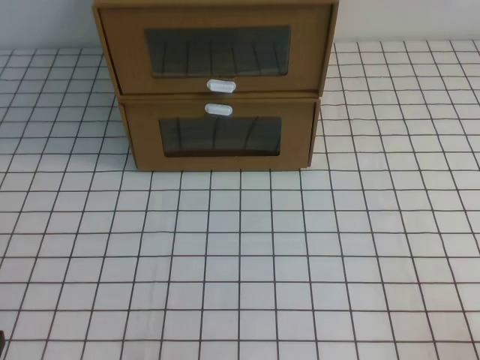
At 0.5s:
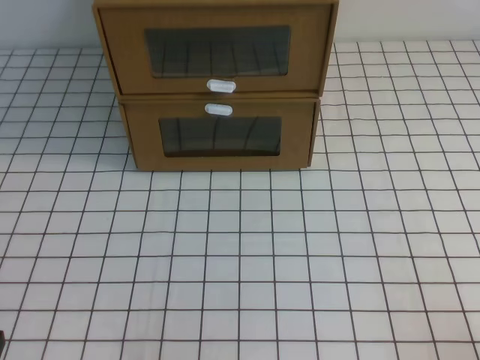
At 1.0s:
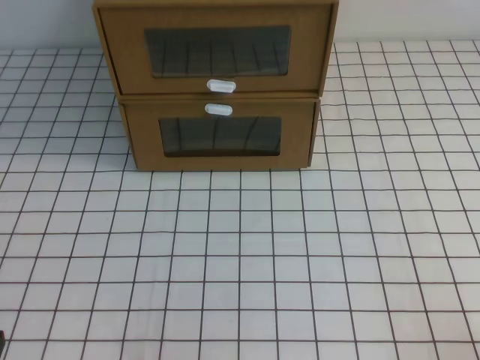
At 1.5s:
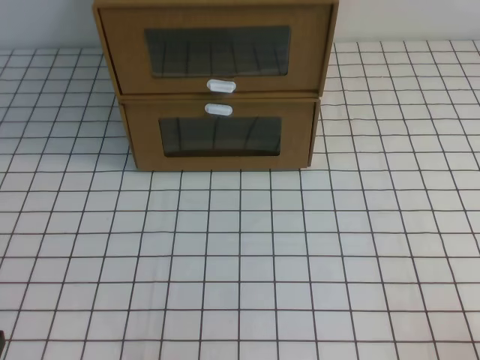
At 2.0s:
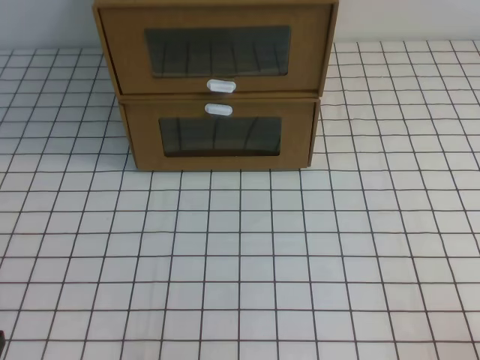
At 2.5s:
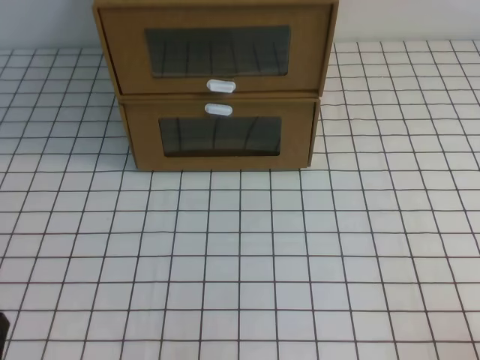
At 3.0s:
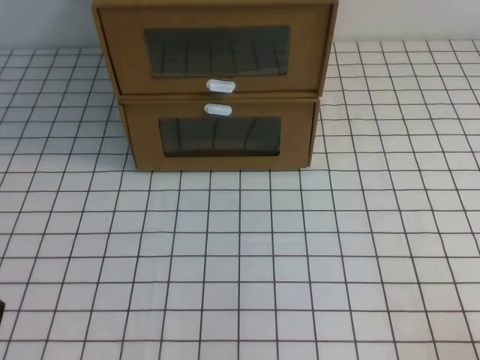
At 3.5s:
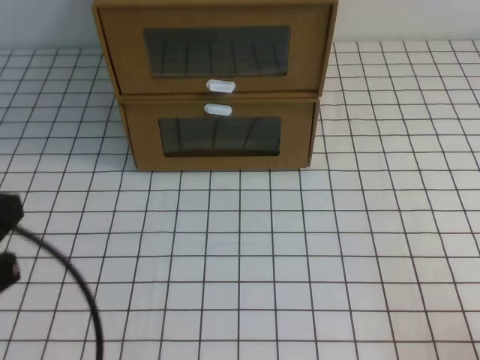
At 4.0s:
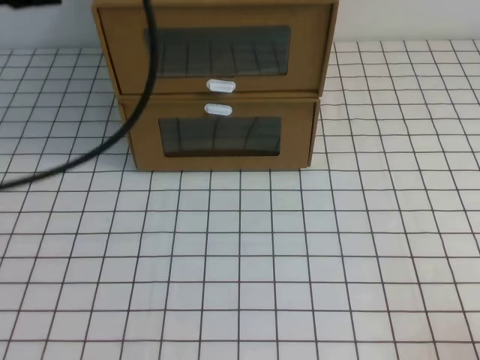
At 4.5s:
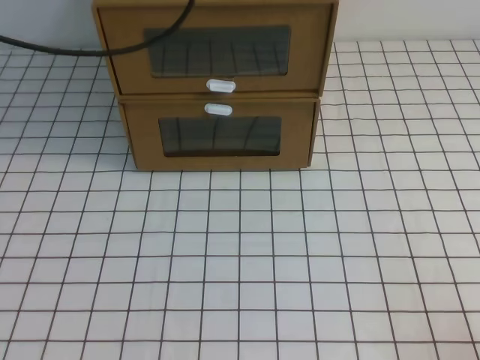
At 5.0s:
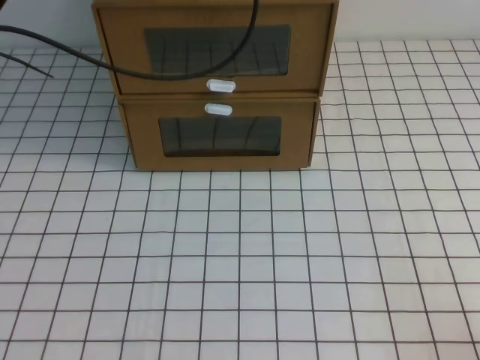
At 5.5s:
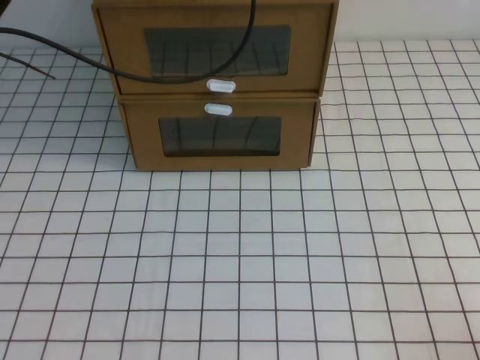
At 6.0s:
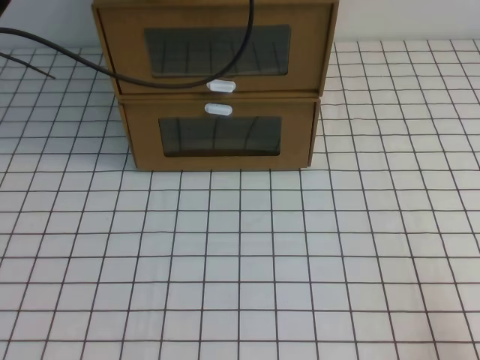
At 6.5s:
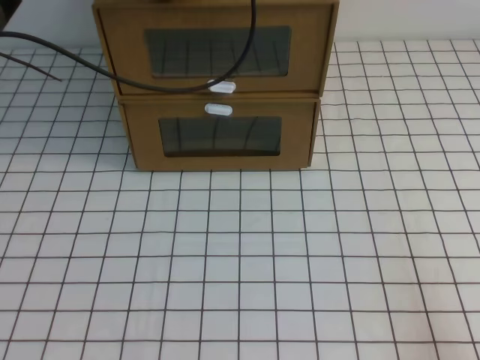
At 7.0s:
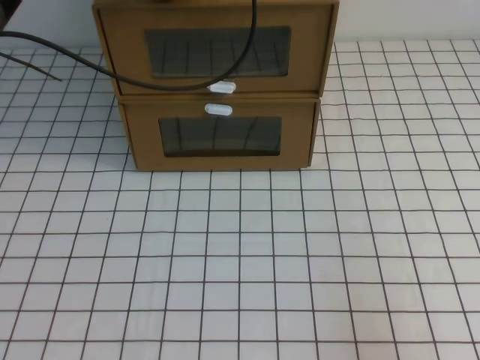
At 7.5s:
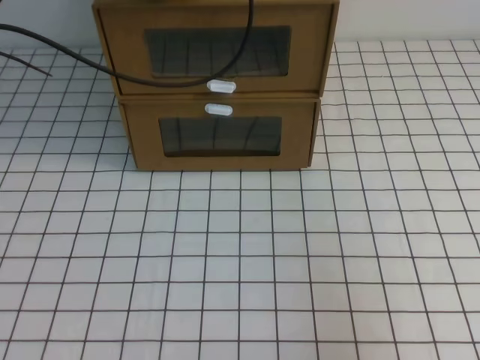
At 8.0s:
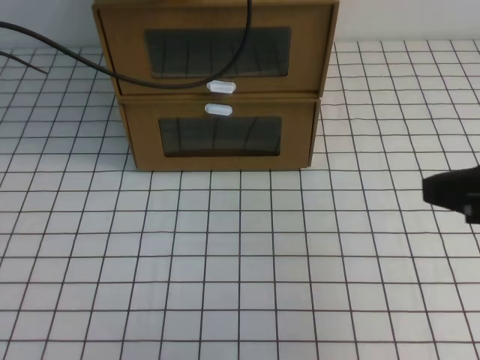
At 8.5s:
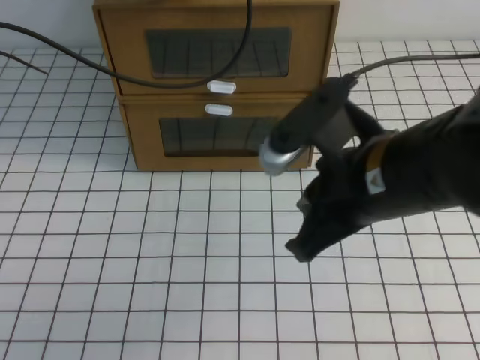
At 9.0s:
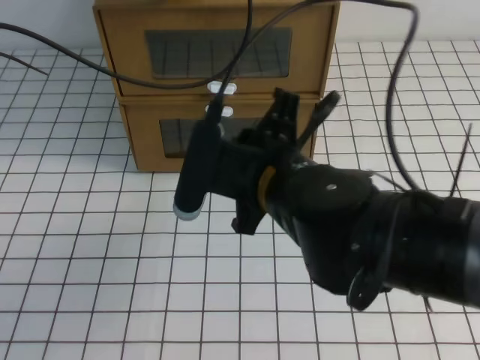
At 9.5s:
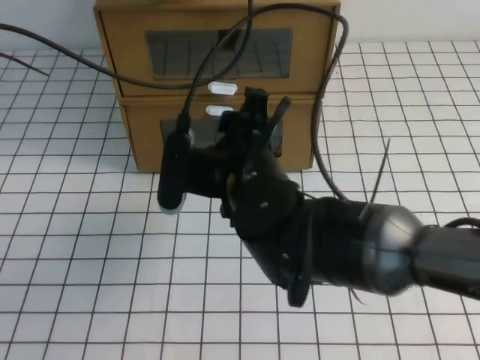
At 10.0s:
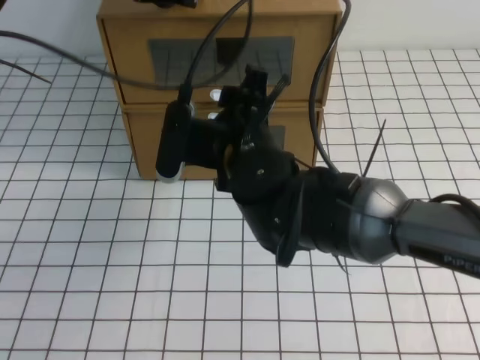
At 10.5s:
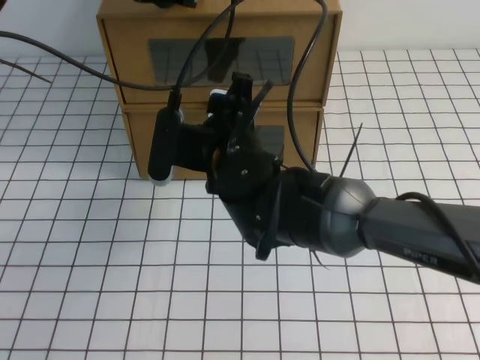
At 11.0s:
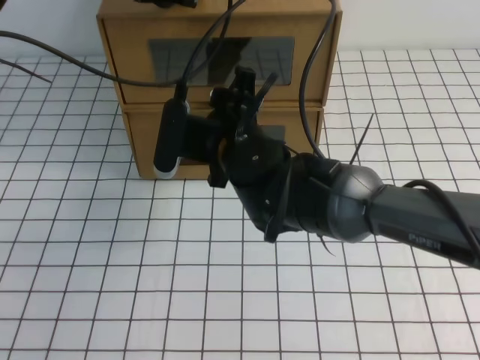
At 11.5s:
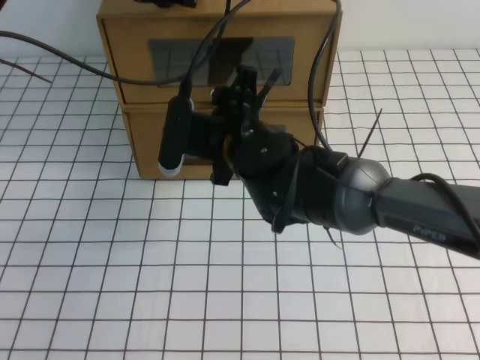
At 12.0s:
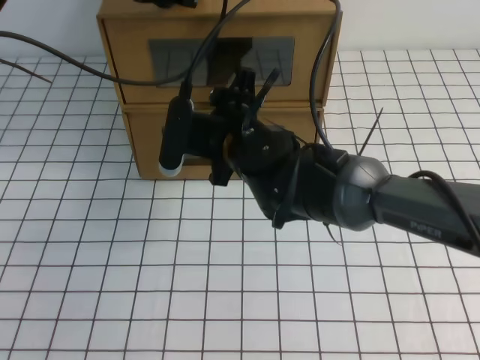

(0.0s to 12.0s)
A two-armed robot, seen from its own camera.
Task of the whole recording: open the shoebox on the white tablecloth.
2.0s - 4.0s: The left gripper is displaced upward and forward by some 30 cm.
4.0s - 6.0s: The left gripper heads forward, covering roughly 25 cm.
6.0s - 8.0s: The right gripper heads upward, forward and to the left, covering approximately 20 cm.
8.0s - 10.0s: The right gripper heads to the left and forward, covering roughly 30 cm, and opens up.
10.0s - 12.0s: The right gripper heads forward, covering some 5 cm.

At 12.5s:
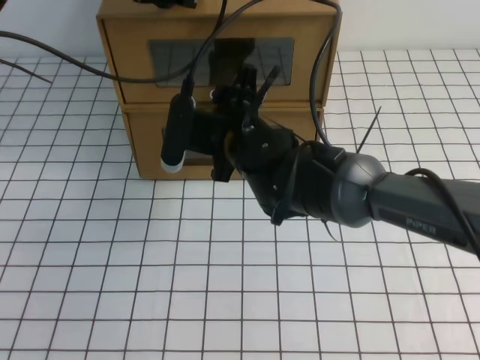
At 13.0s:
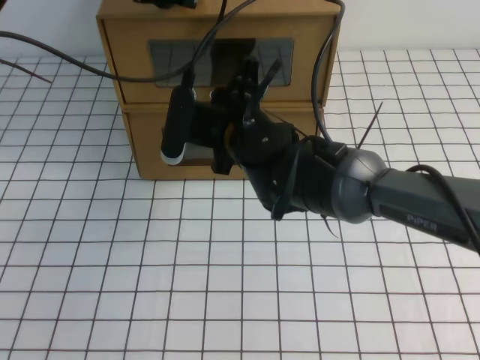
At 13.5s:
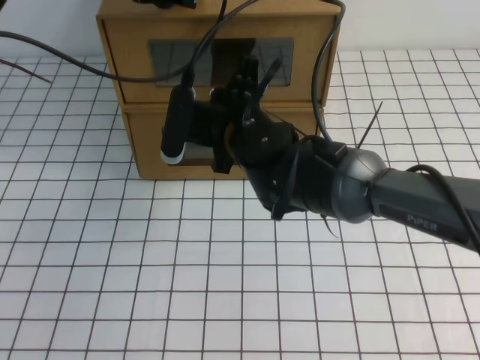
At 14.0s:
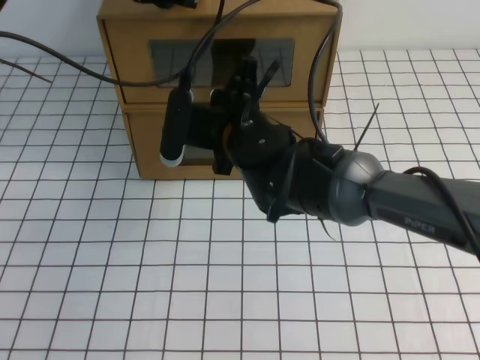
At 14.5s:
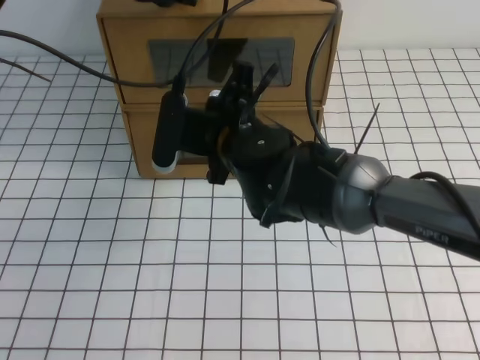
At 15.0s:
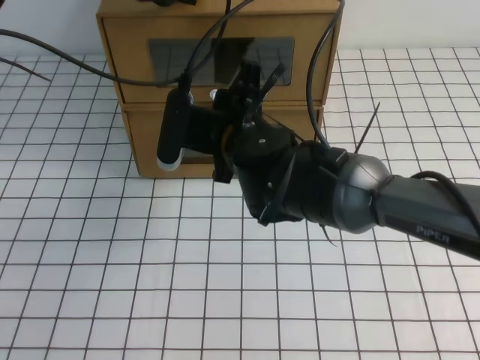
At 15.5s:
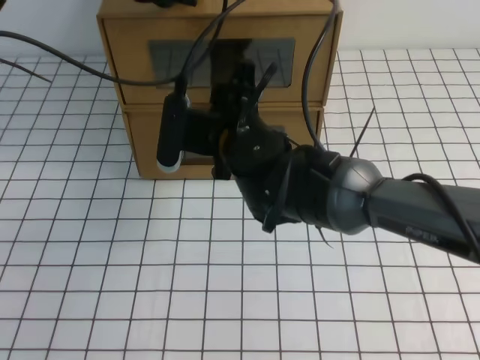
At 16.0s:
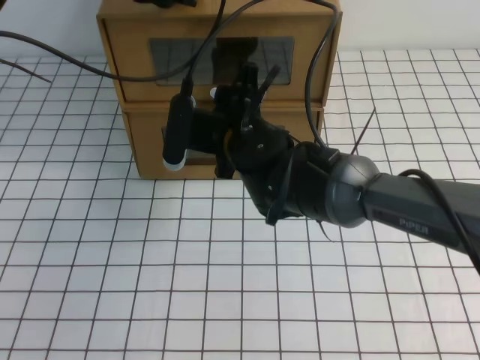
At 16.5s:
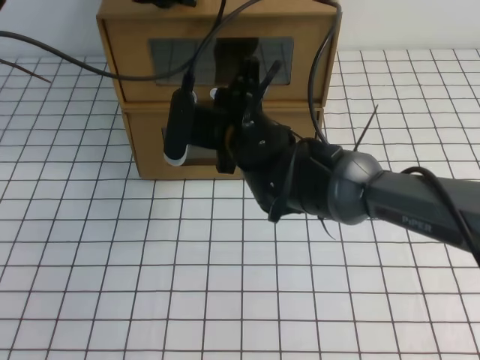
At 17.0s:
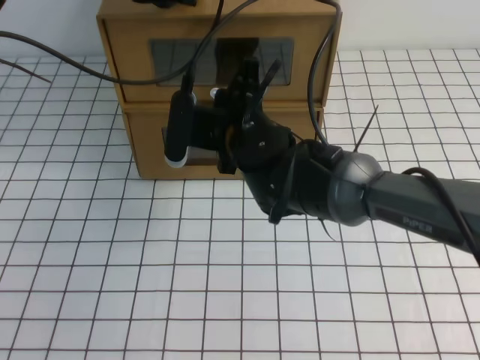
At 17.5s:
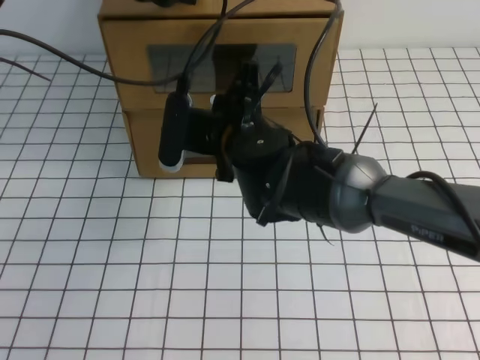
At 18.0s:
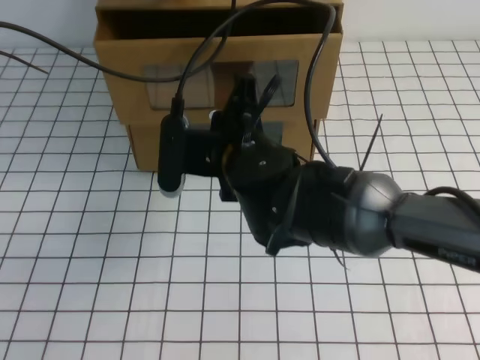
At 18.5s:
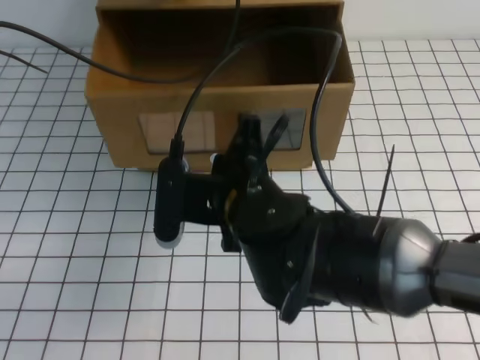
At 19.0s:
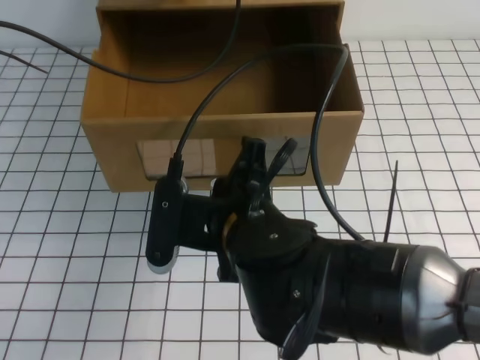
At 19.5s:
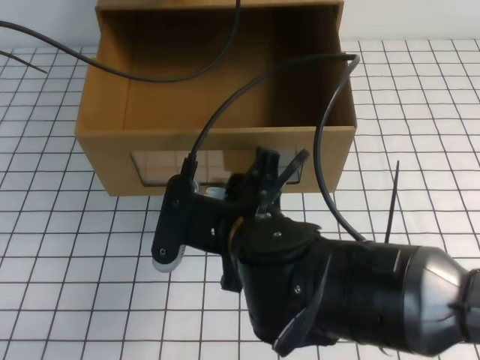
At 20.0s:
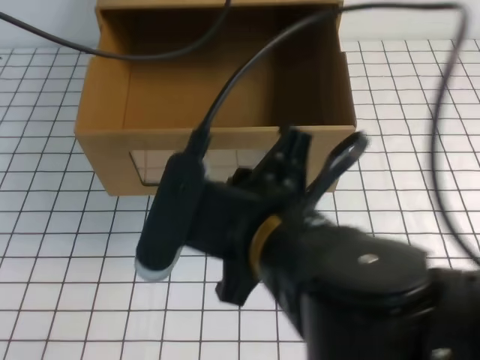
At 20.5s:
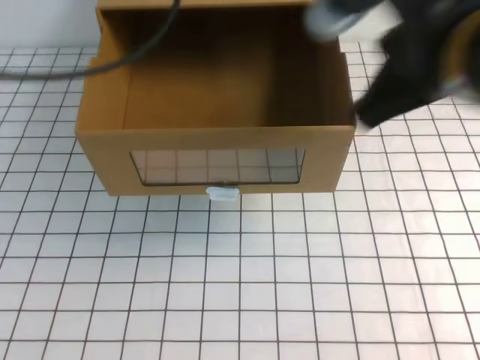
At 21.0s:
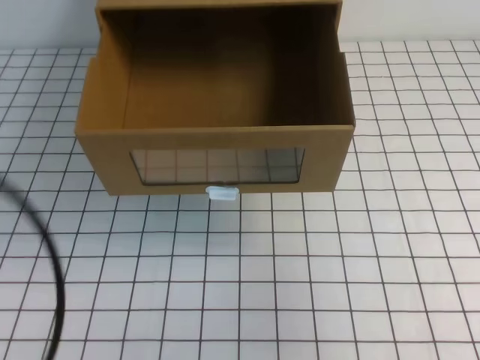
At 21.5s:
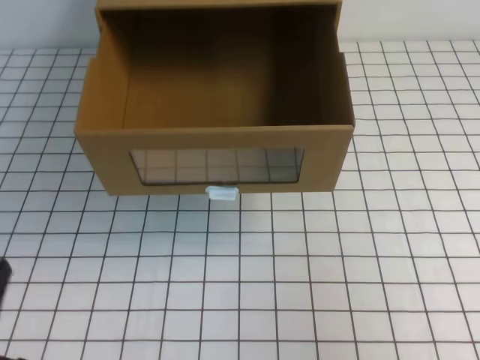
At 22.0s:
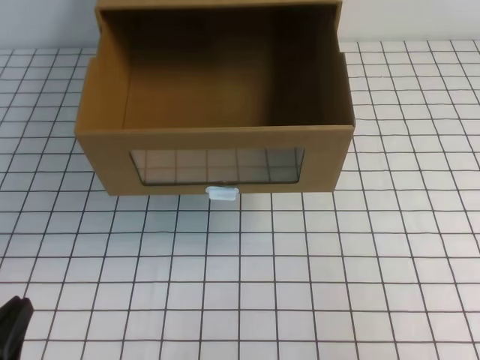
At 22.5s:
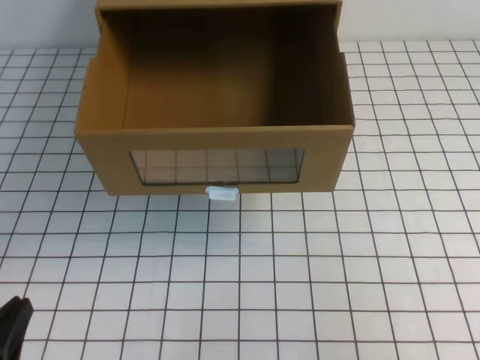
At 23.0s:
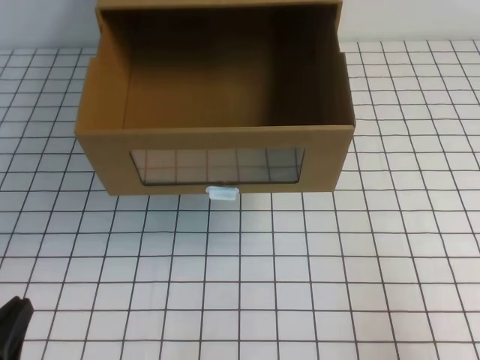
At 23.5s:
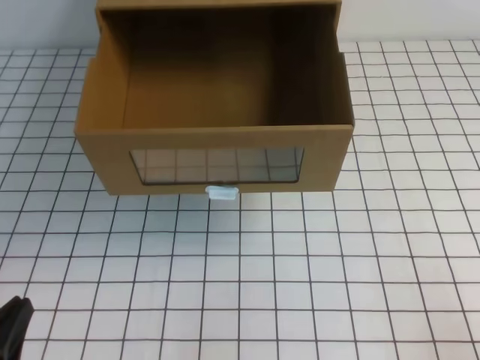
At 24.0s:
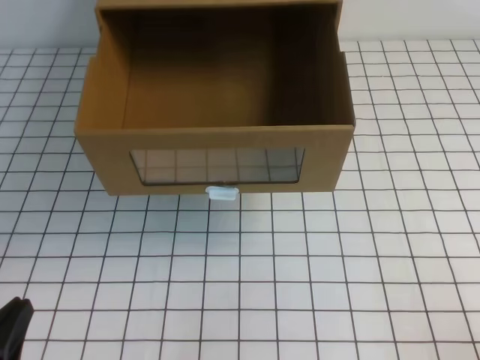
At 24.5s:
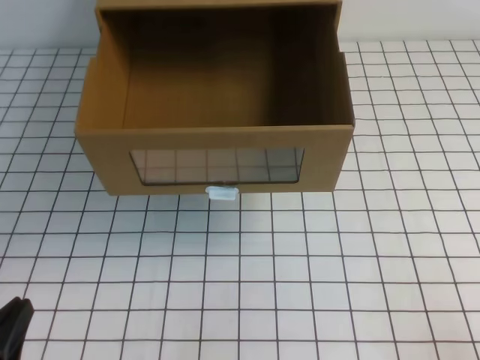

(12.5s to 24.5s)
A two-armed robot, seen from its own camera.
Task of the whole recording: open the shoebox on the white tablecloth.
12.5s - 14.5s: The right gripper closes up.
14.5s - 16.5s: The right gripper opens up.
16.5s - 18.5s: The right gripper heads backward, covering approximately 10 cm, and closes up.
18.5s - 20.5s: The left gripper travels backward and upward by about 15 cm. Meanwhile the right gripper is displaced upward, to the right and backward by about 20 cm, and opens, then closes once more.
20.5s - 22.5s: The left gripper shifts approximately 40 cm downward and backward, while the right gripper moves to the right and downward, some 20 cm.

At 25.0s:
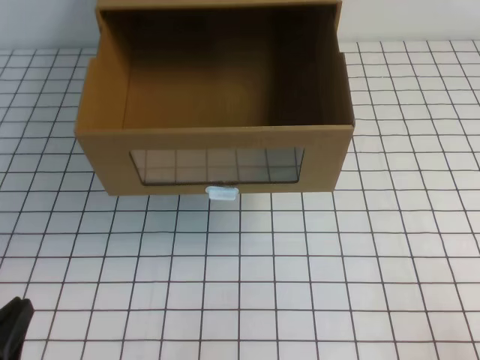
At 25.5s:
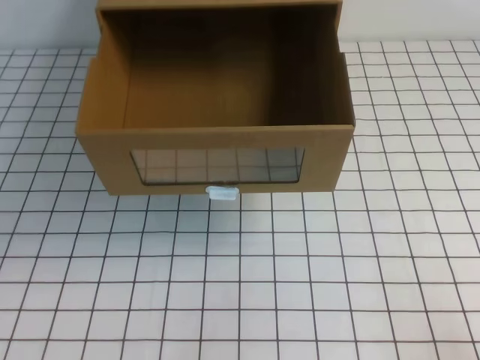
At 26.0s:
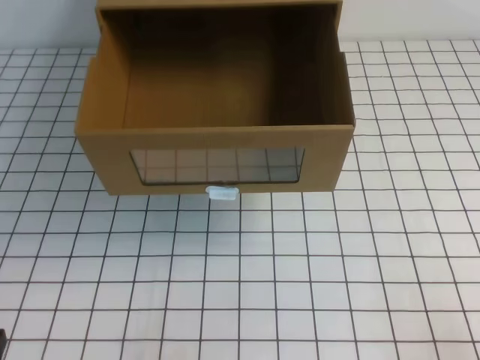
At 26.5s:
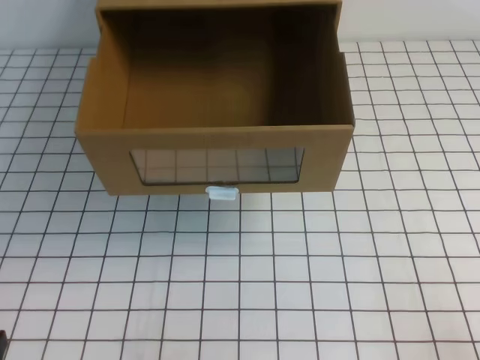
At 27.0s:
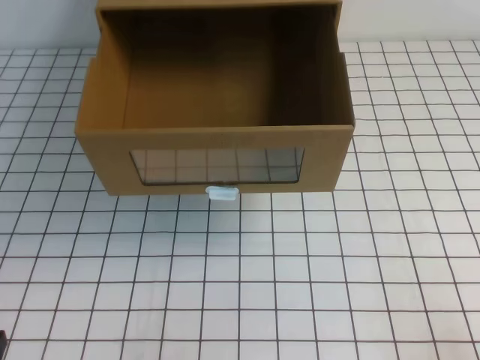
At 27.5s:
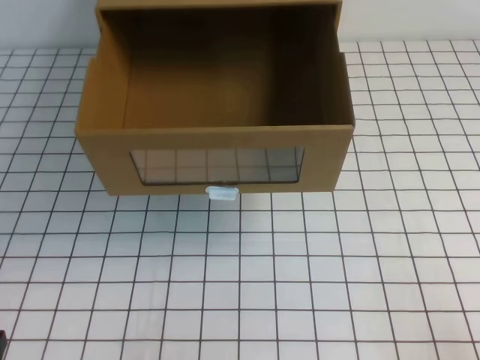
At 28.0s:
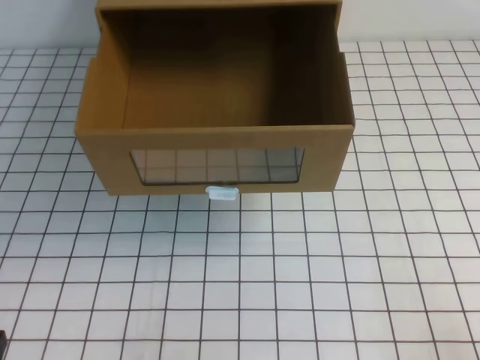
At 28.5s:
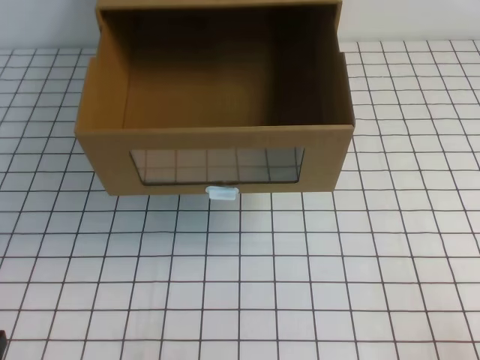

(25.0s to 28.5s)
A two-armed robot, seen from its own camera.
Task of the whole recording: open the shoebox on the white tablecloth.
Step, 25.0s - 28.5s: Open the shoe box.
27.0s - 28.5s: Neither gripper changes place.
